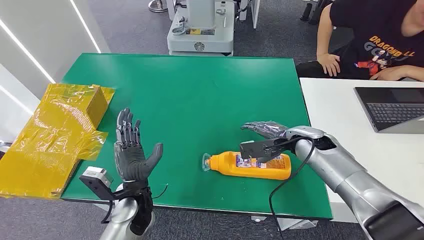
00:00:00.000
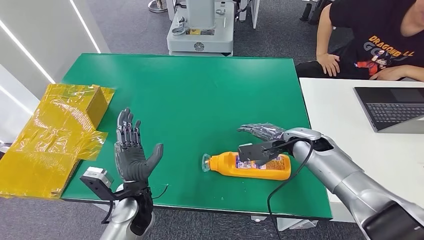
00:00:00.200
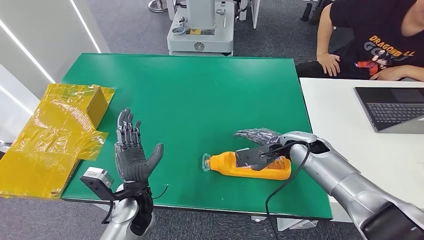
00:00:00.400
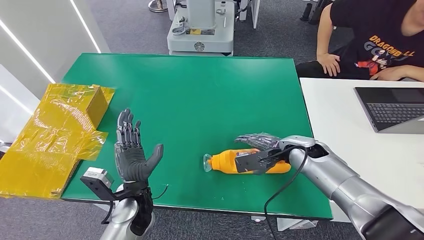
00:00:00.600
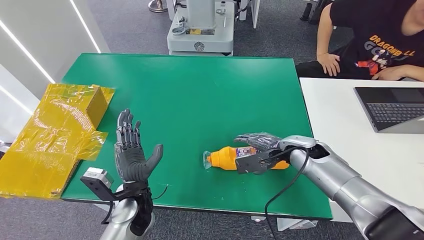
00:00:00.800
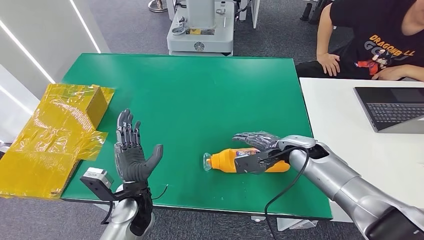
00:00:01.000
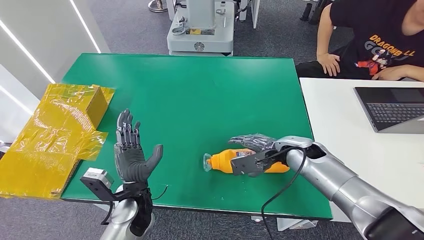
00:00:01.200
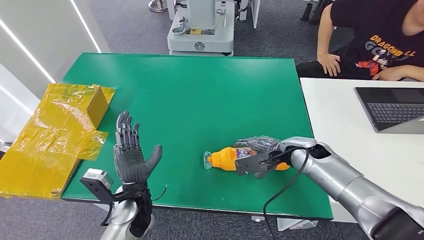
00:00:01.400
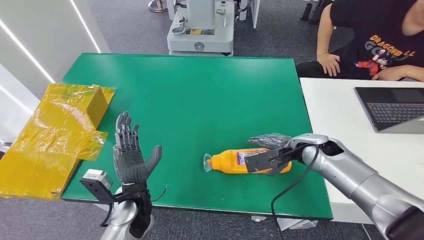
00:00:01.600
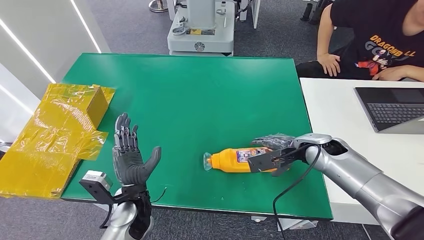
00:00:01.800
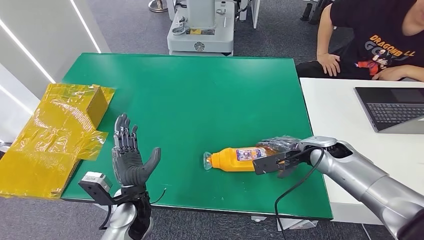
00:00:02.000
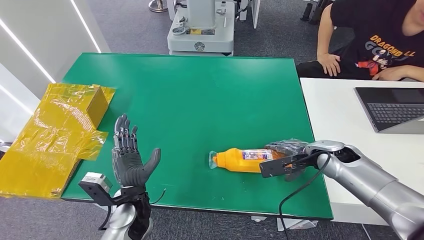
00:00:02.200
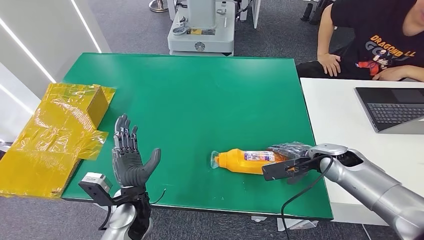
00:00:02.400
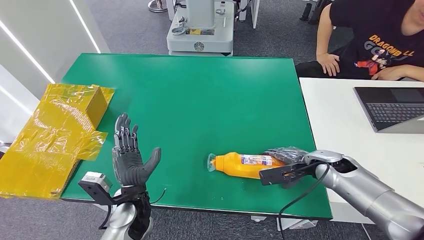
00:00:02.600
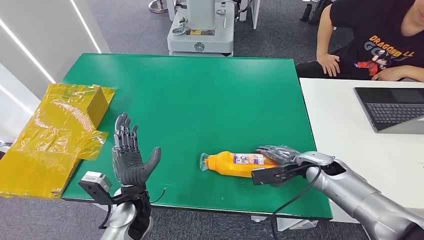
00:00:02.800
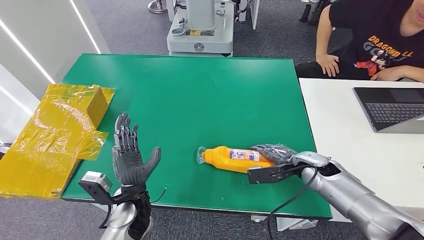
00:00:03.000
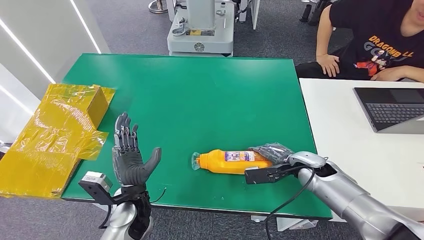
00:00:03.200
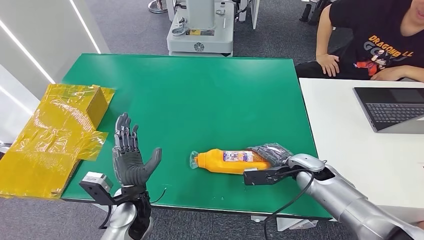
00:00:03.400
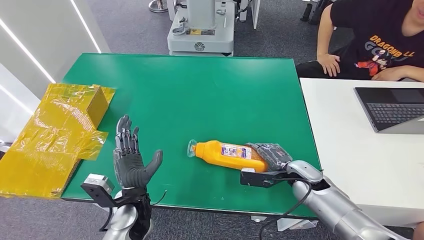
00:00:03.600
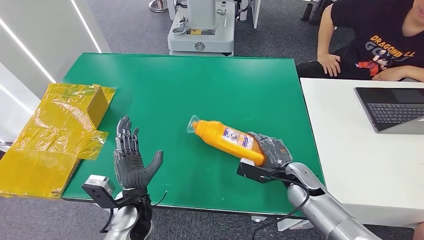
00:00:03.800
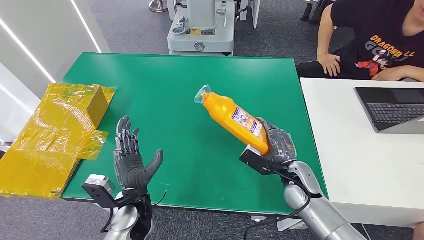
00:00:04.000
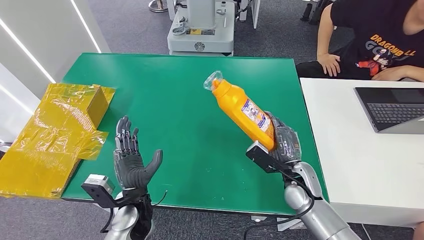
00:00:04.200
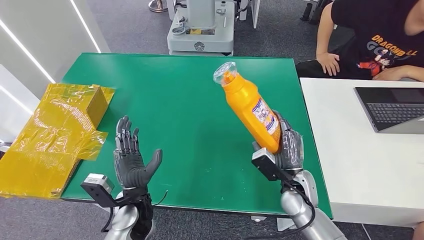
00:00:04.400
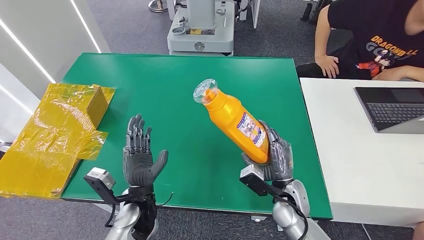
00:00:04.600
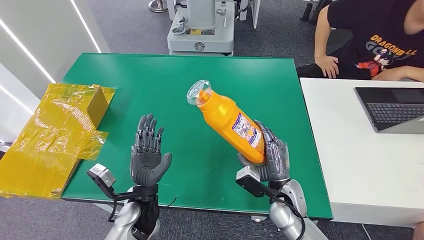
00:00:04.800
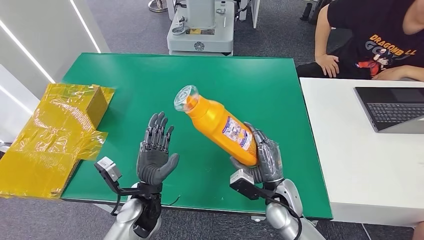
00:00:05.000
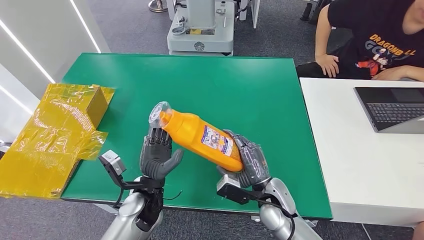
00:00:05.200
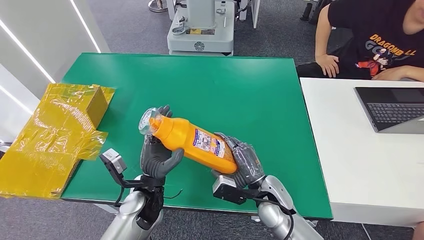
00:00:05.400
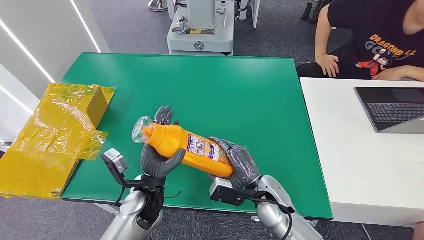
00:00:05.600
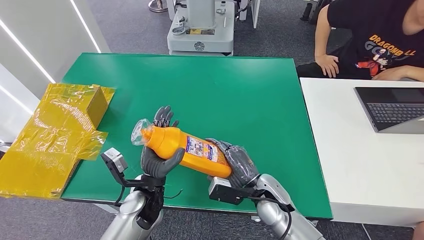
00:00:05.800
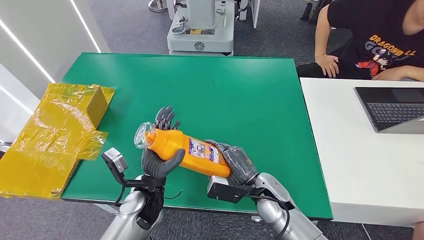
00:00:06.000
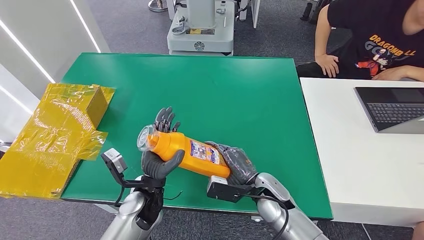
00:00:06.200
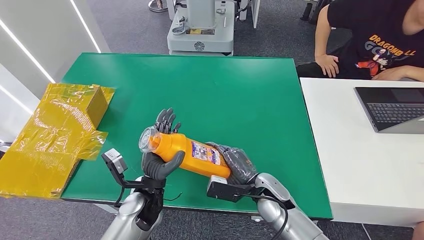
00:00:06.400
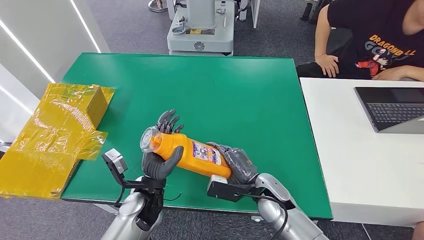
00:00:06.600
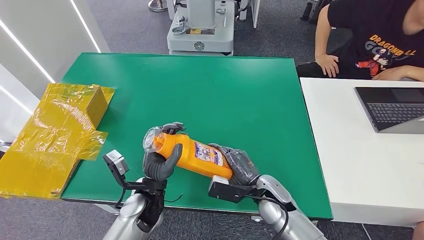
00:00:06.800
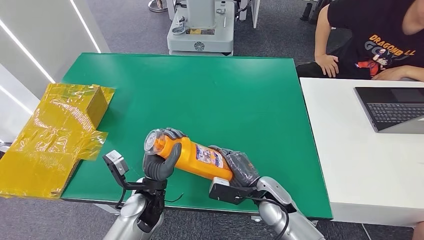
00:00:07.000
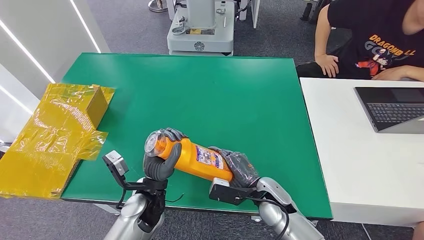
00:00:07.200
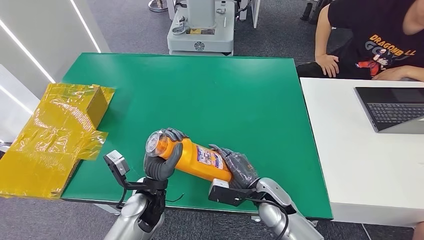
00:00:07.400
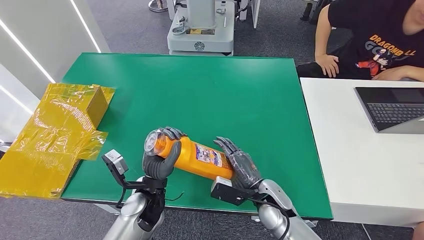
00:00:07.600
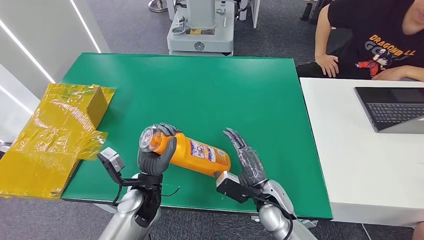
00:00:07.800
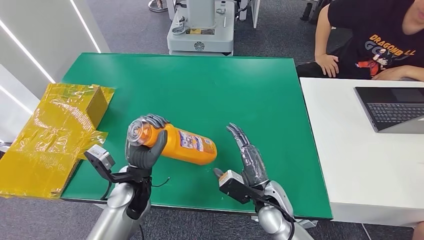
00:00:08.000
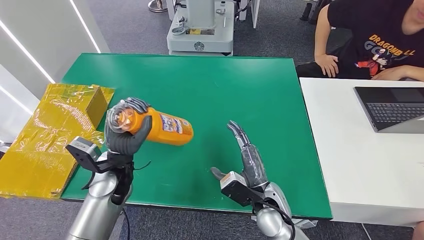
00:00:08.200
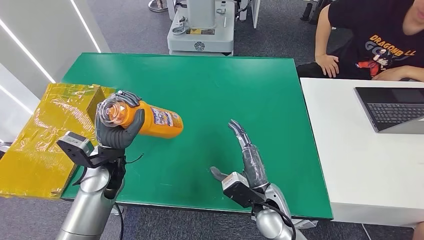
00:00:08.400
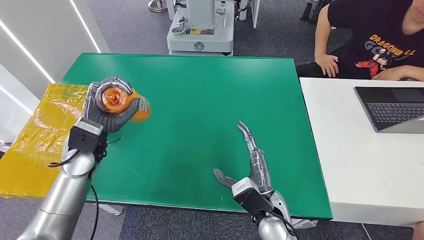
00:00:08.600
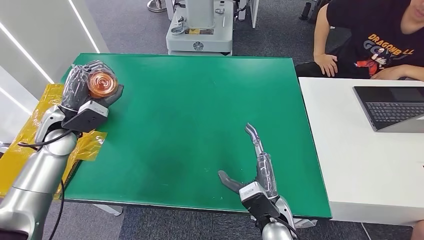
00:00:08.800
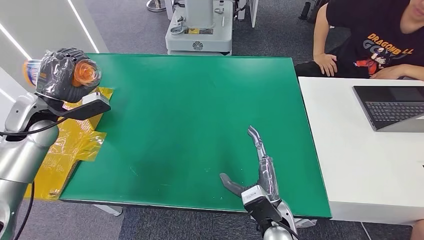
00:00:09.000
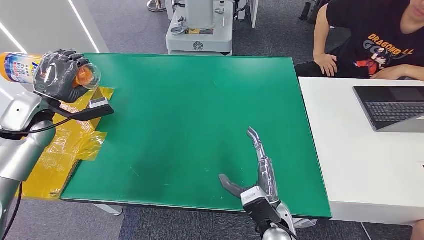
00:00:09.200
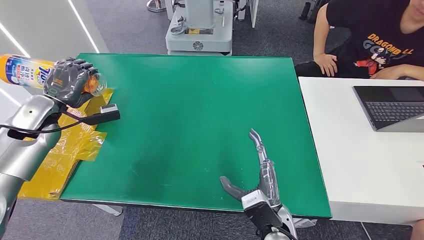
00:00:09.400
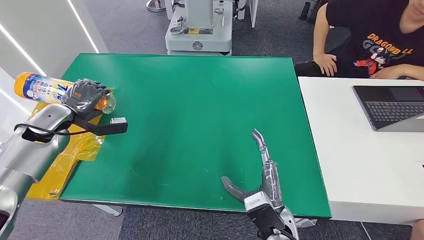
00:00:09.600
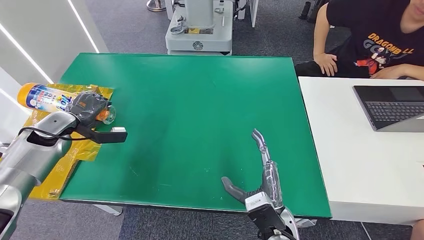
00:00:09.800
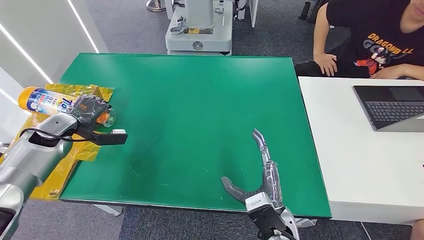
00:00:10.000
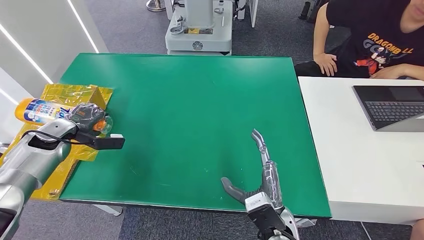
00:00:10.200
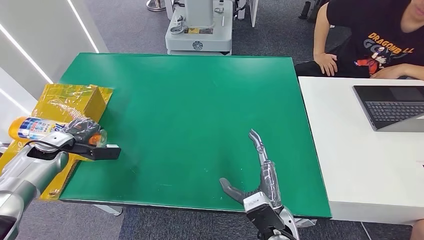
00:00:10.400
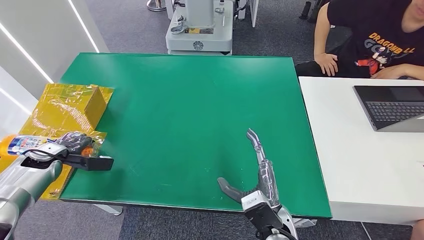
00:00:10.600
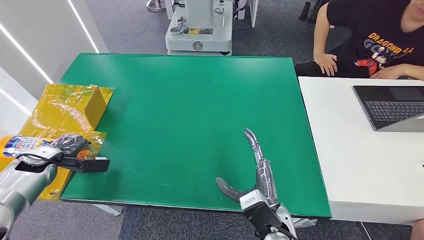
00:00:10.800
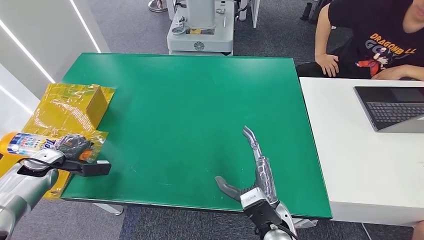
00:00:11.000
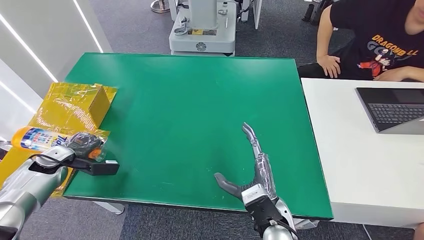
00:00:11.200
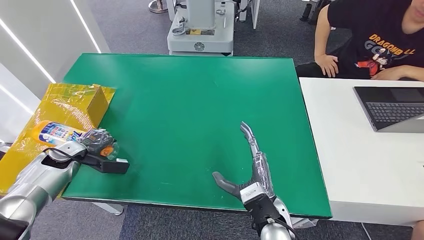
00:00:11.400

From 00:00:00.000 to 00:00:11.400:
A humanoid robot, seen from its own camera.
Step, from 00:00:00.000 to 00:00:05.600: Pick up the bottle from the table.
Step, from 00:00:05.800 to 00:00:11.400: Turn the bottle to the front side.
From 00:00:01.400 to 00:00:02.800: The right hand heads to the right, covering some 5 cm.
From 00:00:02.800 to 00:00:04.200: The right hand heads to the left, covering about 10 cm.
From 00:00:04.200 to 00:00:05.600: The right hand goes about 10 cm to the left.
From 00:00:05.600 to 00:00:07.200: The hands move only a little.
From 00:00:07.200 to 00:00:08.600: The left hand heads to the left, forward and upward, covering about 20 cm, while the right hand shifts by roughly 5 cm.
From 00:00:10.000 to 00:00:11.400: The left hand heads downward, covering about 10 cm.
